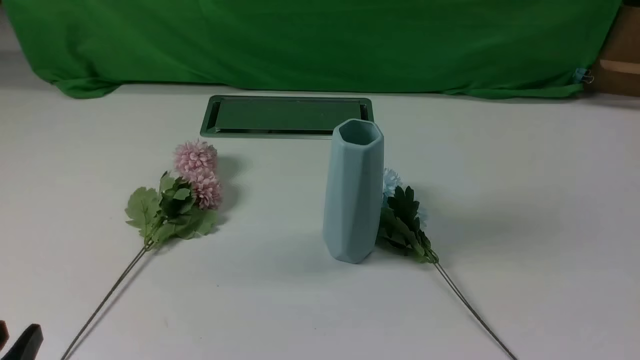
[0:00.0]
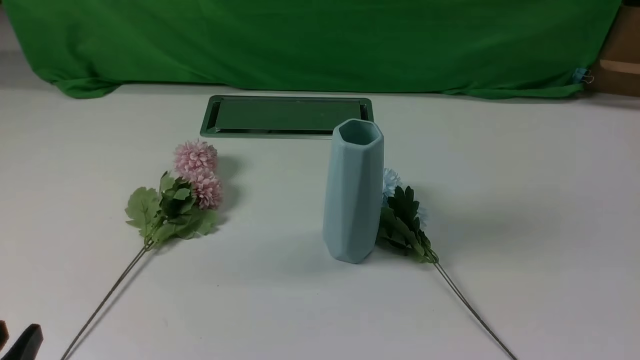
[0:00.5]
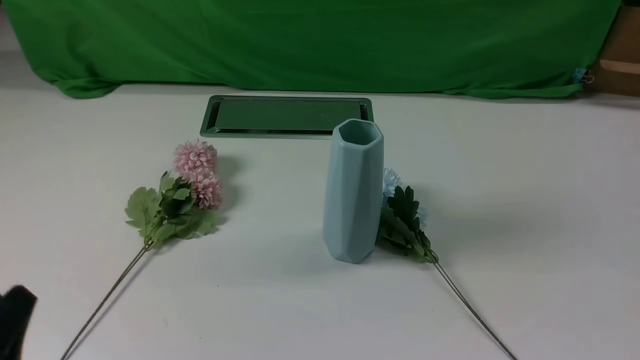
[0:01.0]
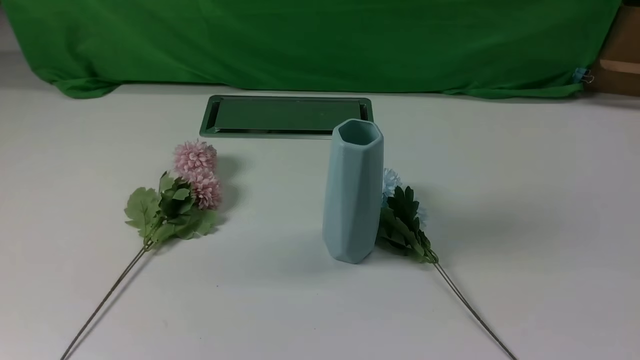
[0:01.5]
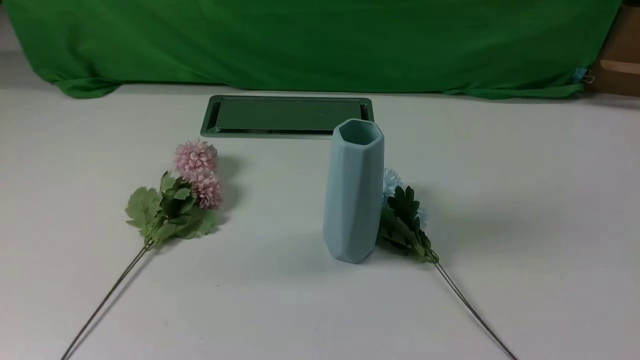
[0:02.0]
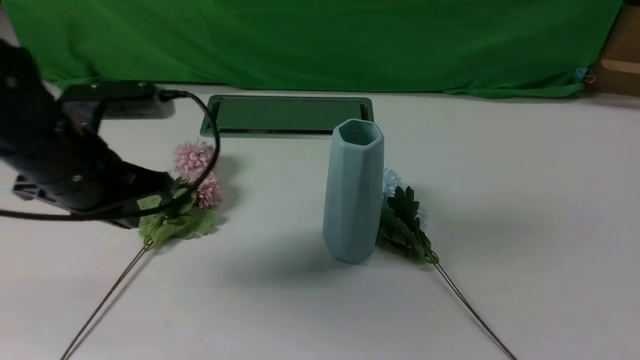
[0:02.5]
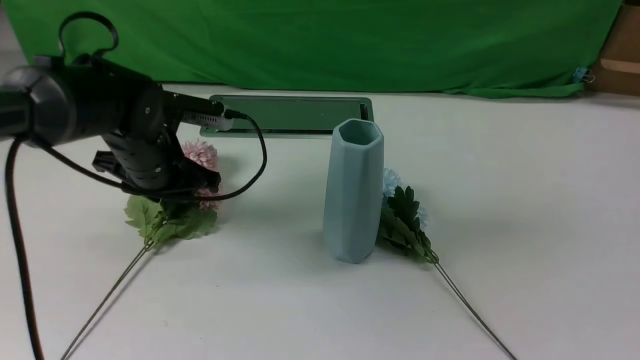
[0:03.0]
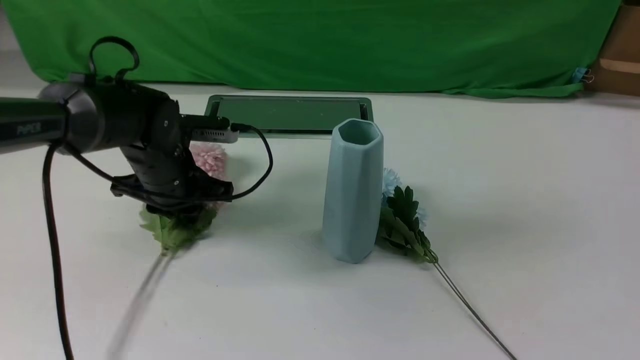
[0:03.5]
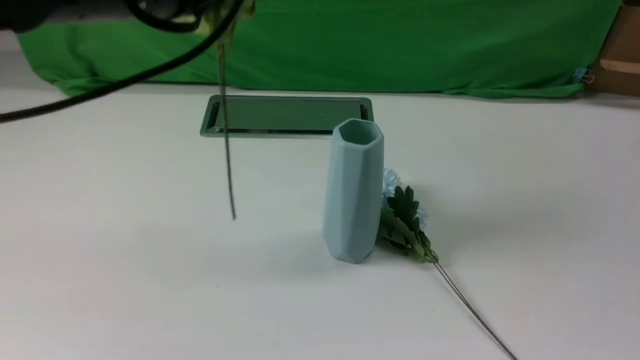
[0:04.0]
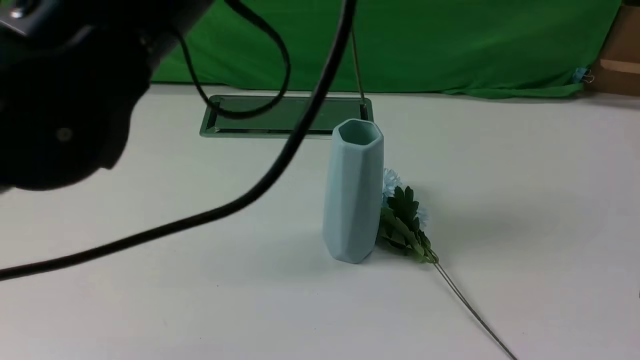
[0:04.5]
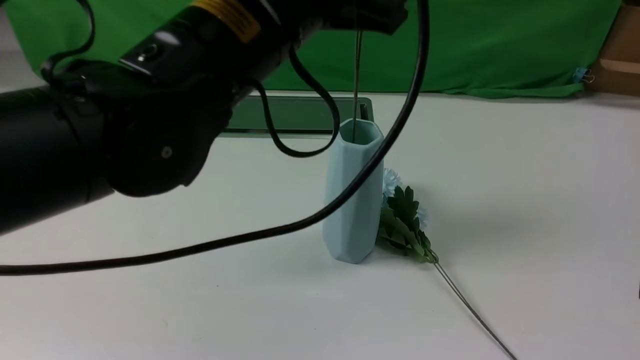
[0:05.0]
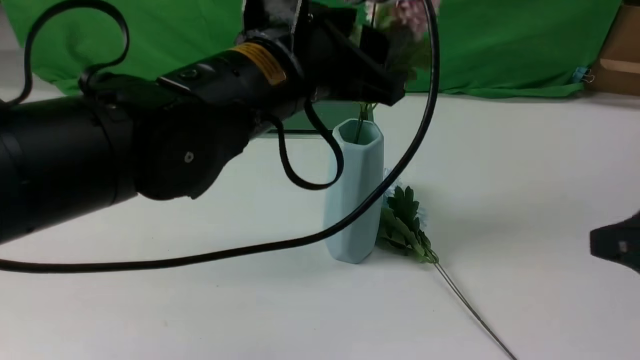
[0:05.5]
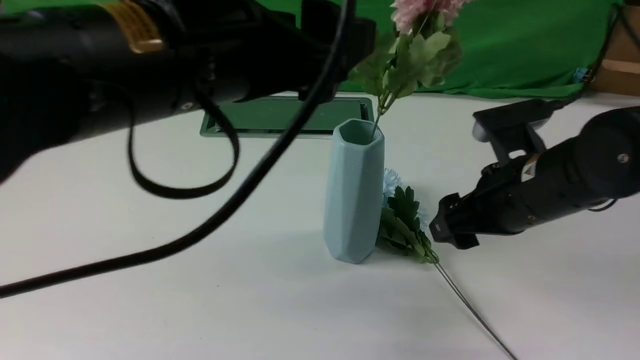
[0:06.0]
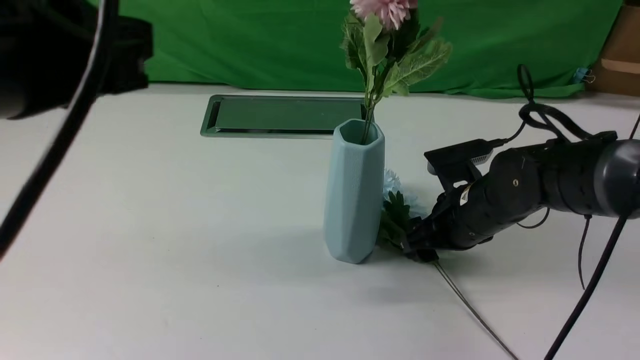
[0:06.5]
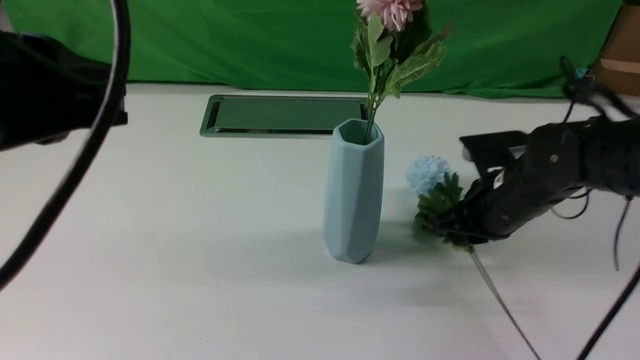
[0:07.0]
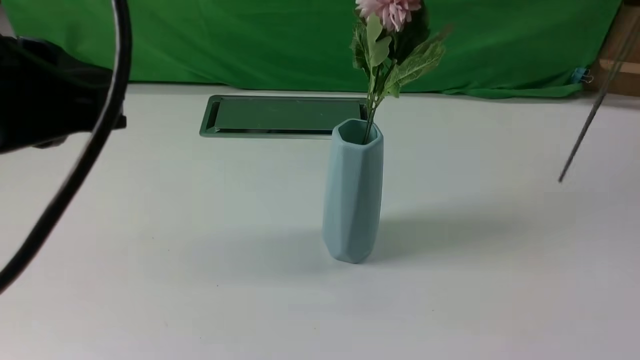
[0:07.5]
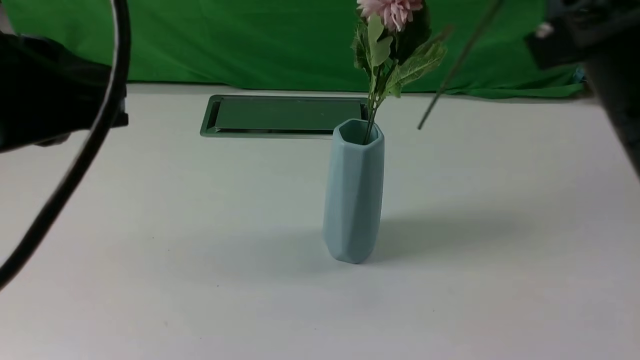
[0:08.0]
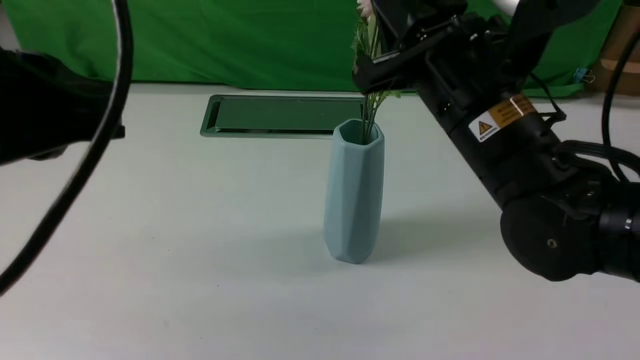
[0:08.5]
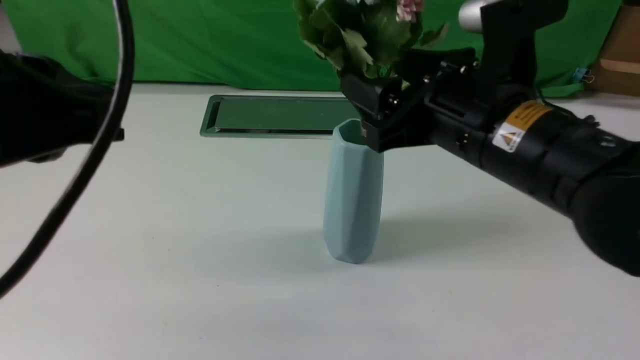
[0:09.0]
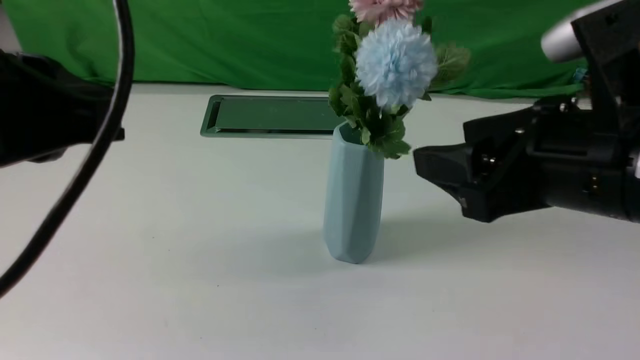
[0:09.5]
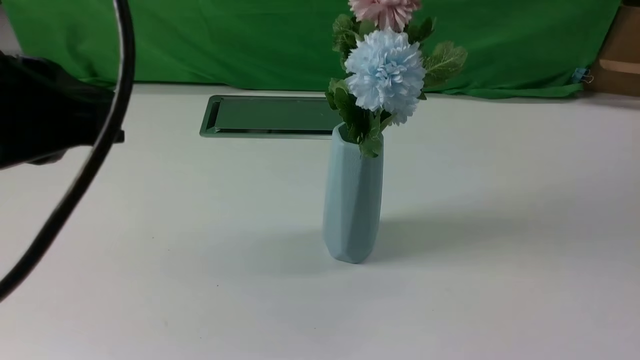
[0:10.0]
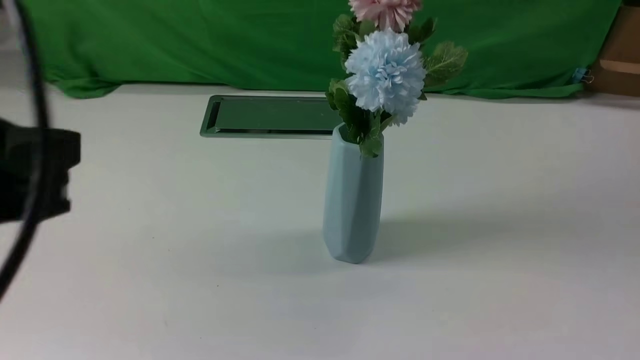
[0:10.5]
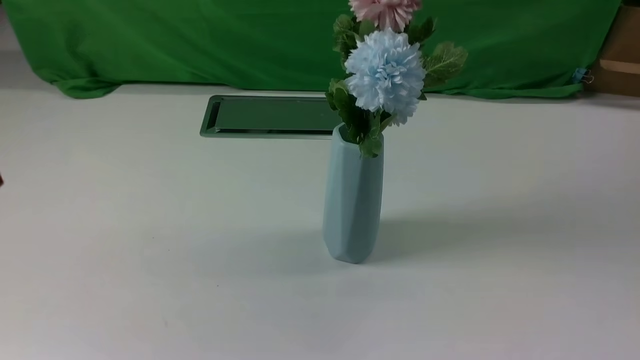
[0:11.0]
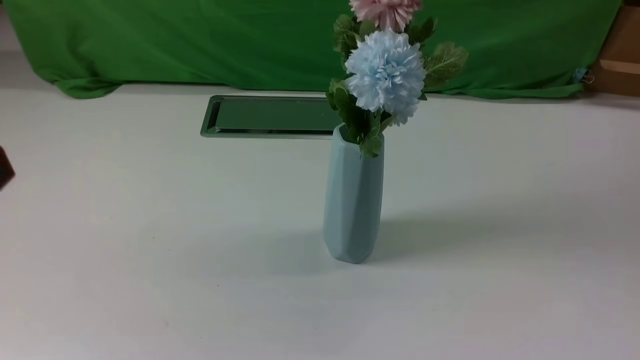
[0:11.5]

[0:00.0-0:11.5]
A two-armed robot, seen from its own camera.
Task of the whole recording: insert the flowers into the vase on the white table.
Step, 0:00.0 to 0:03.5: use the left arm to grab a bunch of fresh flowers.
Step, 0:04.0 to 0:05.5: use the left arm to insert the flowers into the vase.
Step, 0:06.0 to 0:06.5: use the right arm to grab a bunch of fresh flowers.
Step, 0:07.0 to 0:09.5: use the right arm to insert the flowers into the vase.
0:02.0 to 0:04.0: The left gripper is displaced forward and to the right by about 20 cm, and opens, then closes once more. Meanwhile the right gripper goes about 10 cm upward and forward.
0:04.0 to 0:06.0: The left gripper heads backward, covering about 10 cm, and opens up, while the right gripper travels forward, to the left and downward by approximately 25 cm, and opens up.
0:06.0 to 0:07.5: The left gripper shifts approximately 10 cm to the left and backward, and closes up, while the right gripper heads upward and backward, covering about 20 cm, and closes its fingers.
0:07.5 to 0:09.5: The right gripper moves to the left, about 5 cm, and opens up.
0:09.5 to 0:11.5: The right gripper shifts some 20 cm backward and to the right, and closes its fingers. Meanwhile the left gripper shifts approximately 15 cm backward, downward and to the left.
